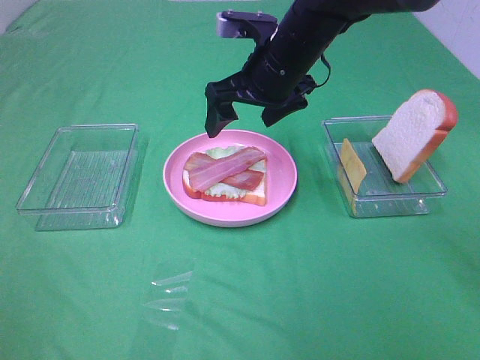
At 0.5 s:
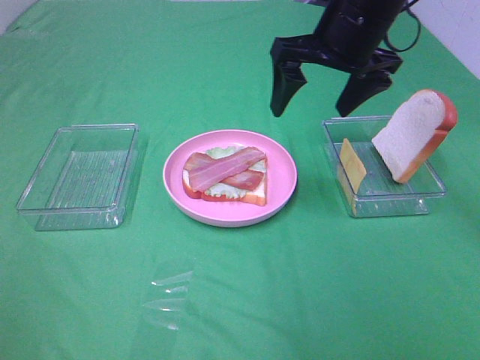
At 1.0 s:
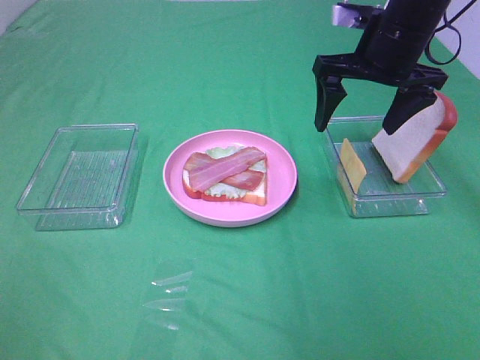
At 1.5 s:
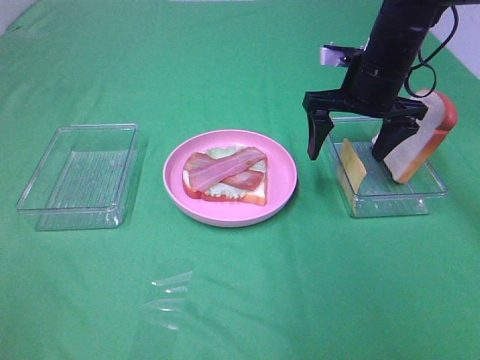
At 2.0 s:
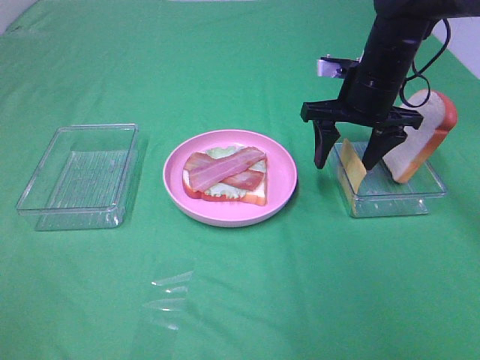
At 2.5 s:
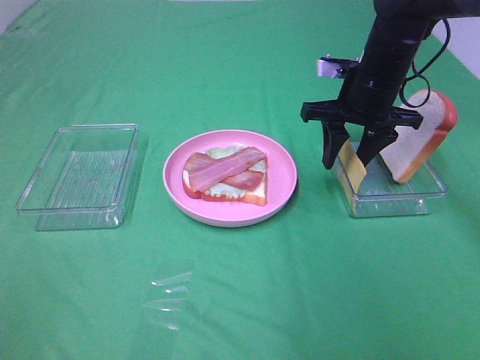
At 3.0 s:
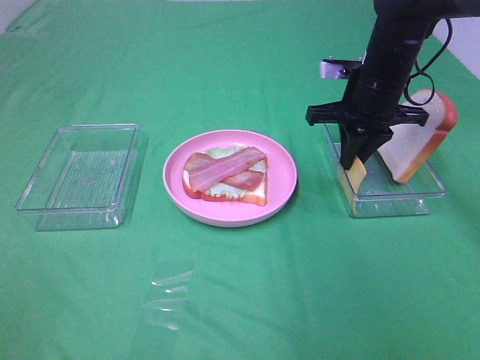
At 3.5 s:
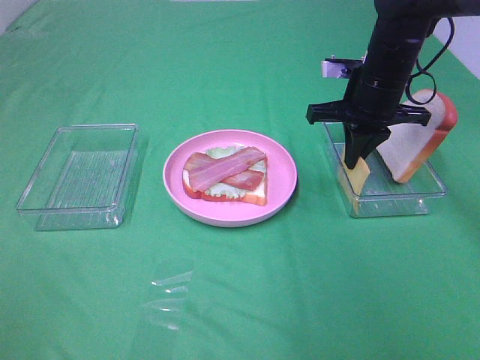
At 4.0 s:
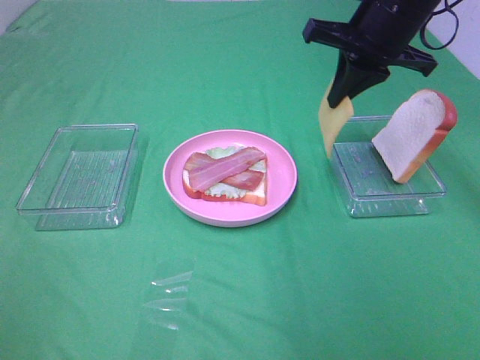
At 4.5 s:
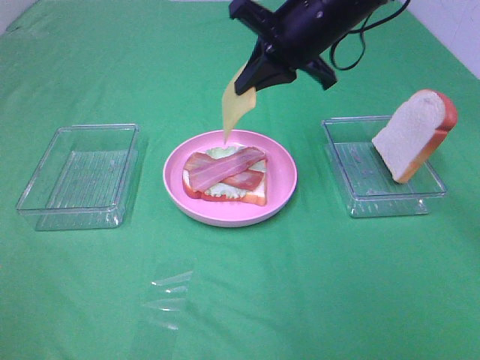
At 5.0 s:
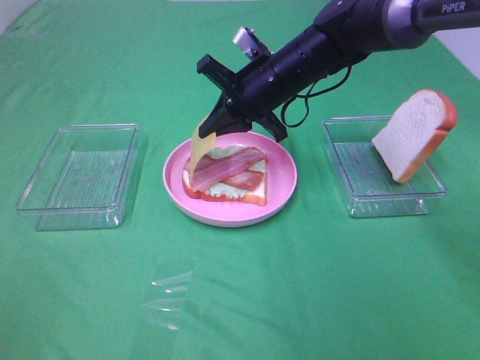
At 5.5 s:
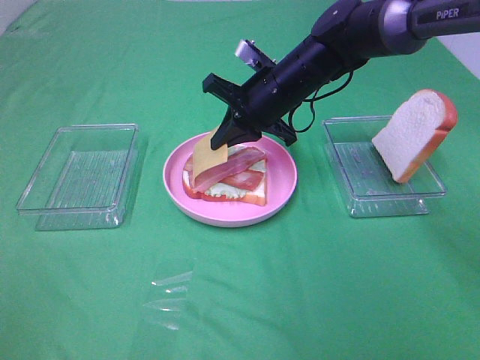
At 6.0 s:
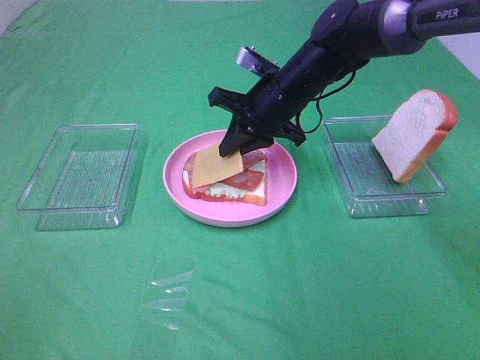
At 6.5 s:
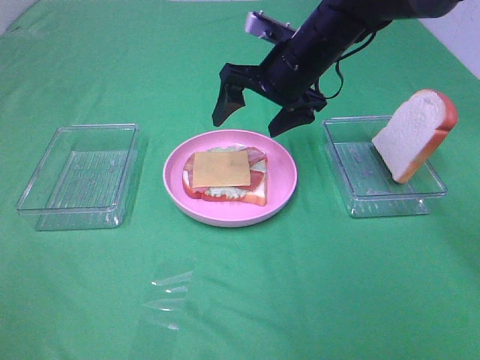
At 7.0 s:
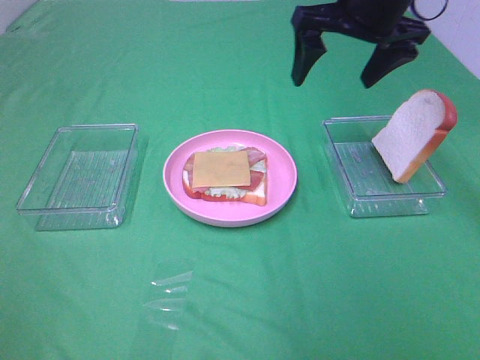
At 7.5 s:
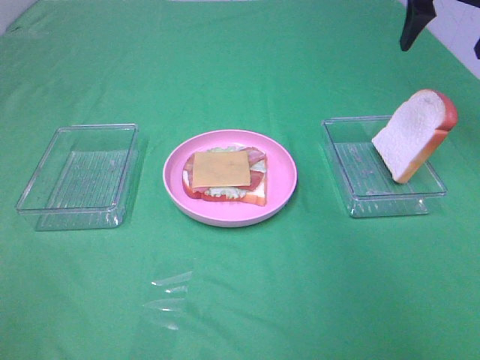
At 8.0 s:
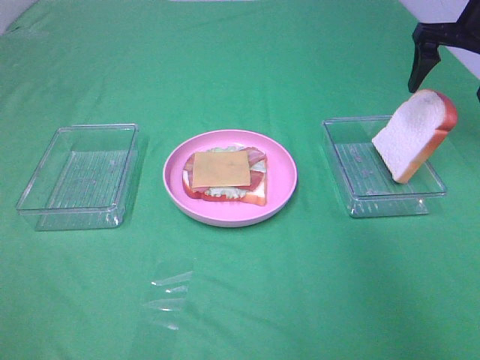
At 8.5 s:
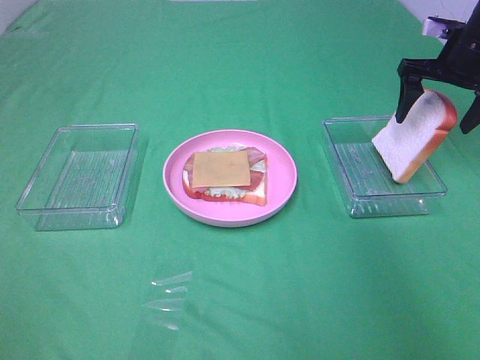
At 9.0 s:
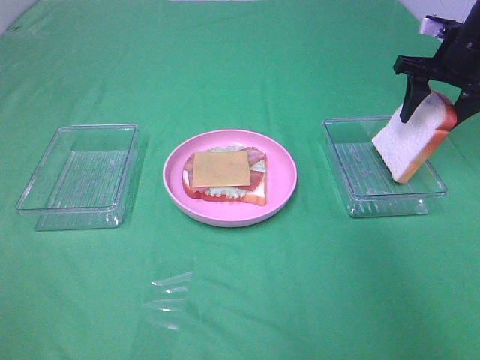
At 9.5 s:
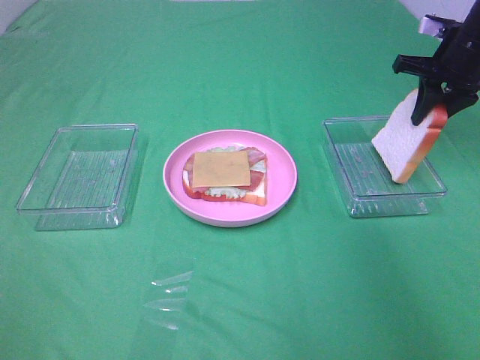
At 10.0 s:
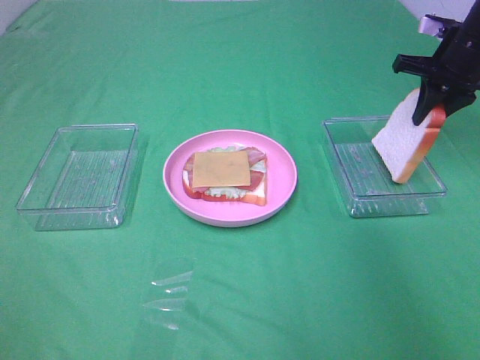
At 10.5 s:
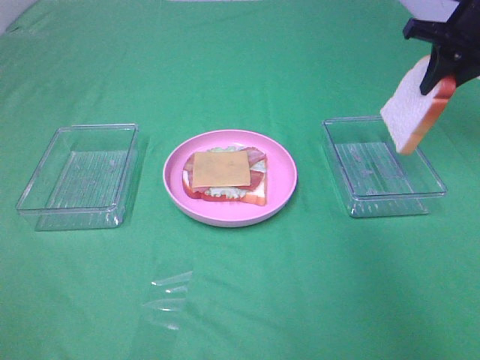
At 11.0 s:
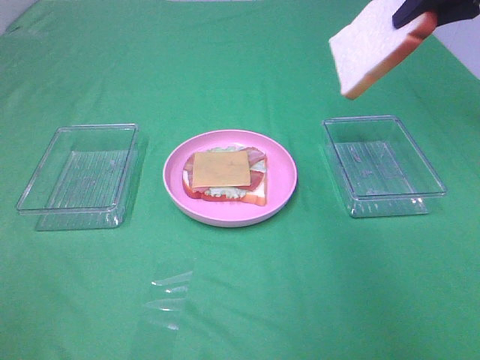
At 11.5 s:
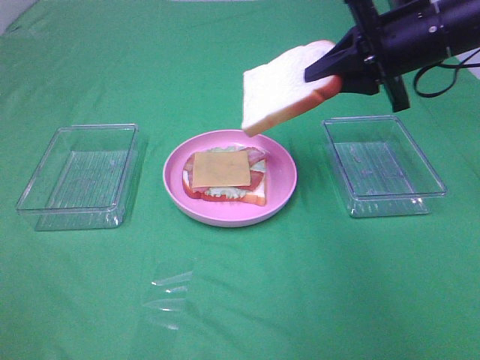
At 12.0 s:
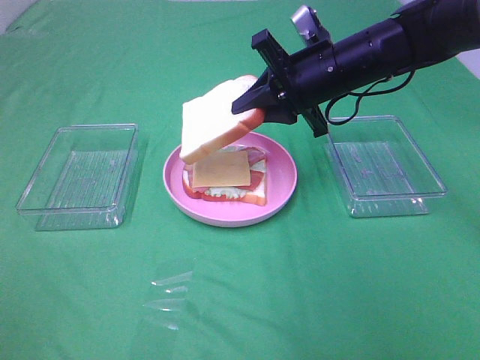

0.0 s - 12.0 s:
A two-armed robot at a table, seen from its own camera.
Task of the whole recording: Make sandwiches.
Step, 0.0 s - 3.0 s: Right hand:grab the cheese slice.
Step, 3.5 s - 6.0 s: Right hand:place the cheese slice on top of the bacon.
Step, 6.5 s - 9.5 s: Right hand:grab the bread slice.
0.0 s - 2.0 s: The right gripper is displaced to the right by roughly 10 cm.
2.0 s - 4.0 s: The right gripper shifts about 10 cm upward, and closes up.
4.0 s - 6.0 s: The right gripper heads downward and to the left, covering some 15 cm.
6.0 s - 8.0 s: The right gripper shifts roughly 25 cm to the right and upward, and opens.
8.0 s - 10.0 s: The right gripper closes.
10.0 s - 12.0 s: The right gripper shifts some 20 cm to the left.

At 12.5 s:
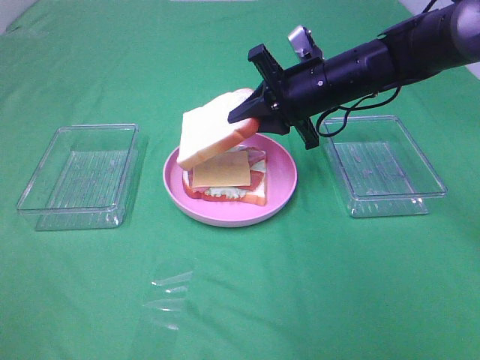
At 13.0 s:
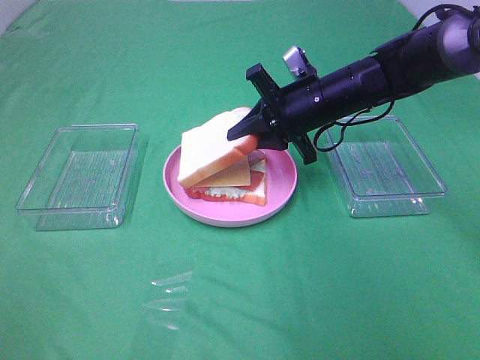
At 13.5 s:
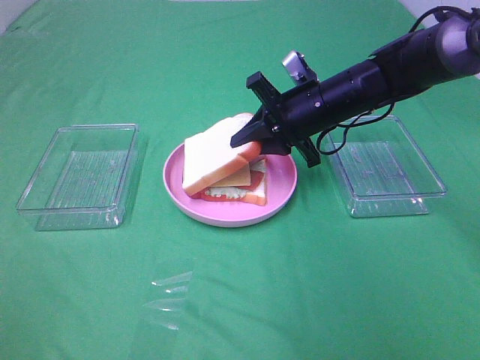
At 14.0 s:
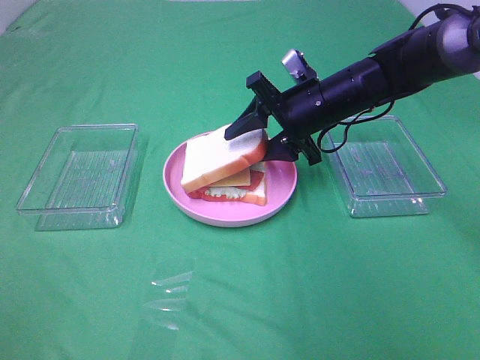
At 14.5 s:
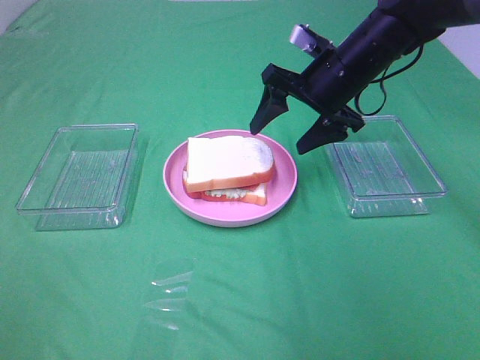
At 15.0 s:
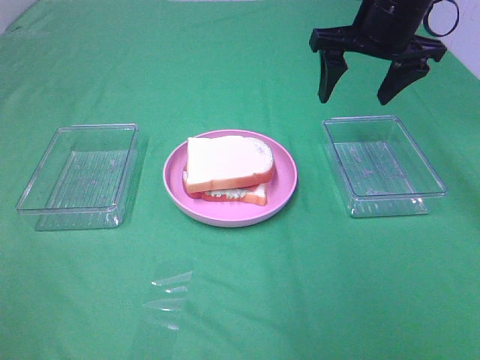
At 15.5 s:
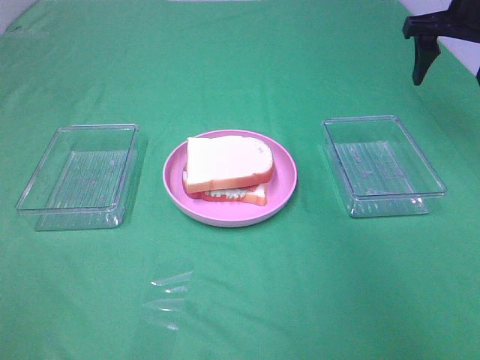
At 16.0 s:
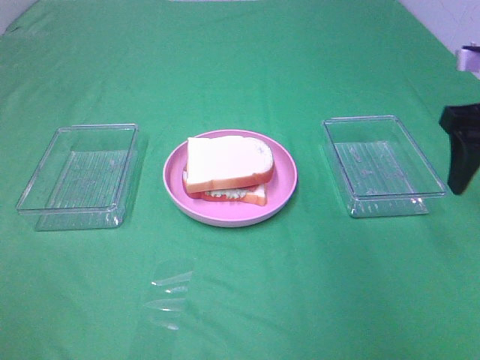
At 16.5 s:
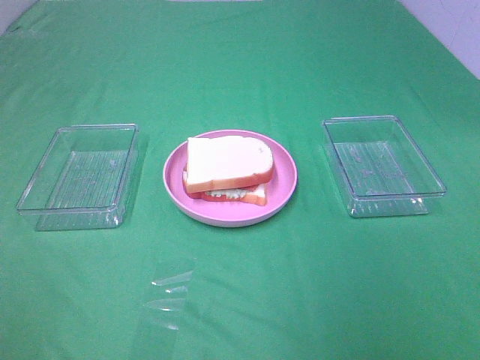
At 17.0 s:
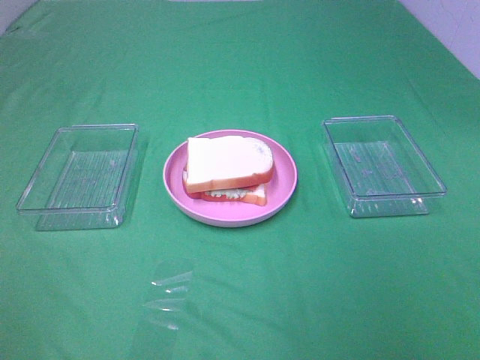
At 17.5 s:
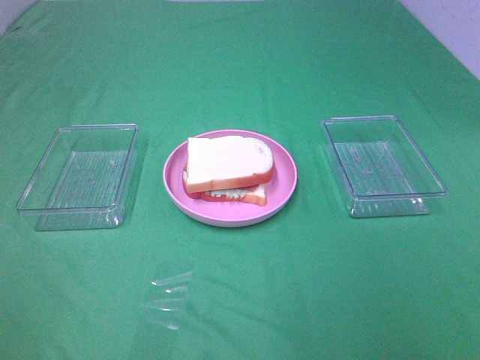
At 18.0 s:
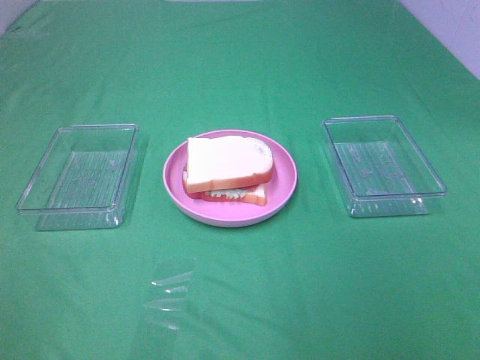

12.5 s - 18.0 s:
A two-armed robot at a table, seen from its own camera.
Task of the whole recording: Make sandwiches.
12.5 s - 14.5 s: The right gripper opens up.
14.5 s - 16.0 s: The right gripper is displaced to the right, backward and upward by roughly 20 cm.
16.0 s - 18.0 s: The right gripper is displaced backward by about 30 cm.

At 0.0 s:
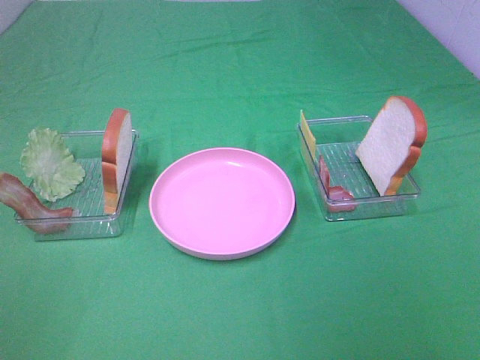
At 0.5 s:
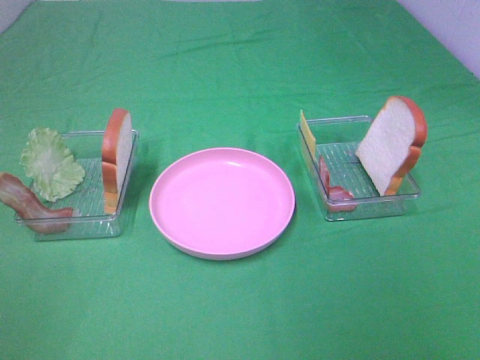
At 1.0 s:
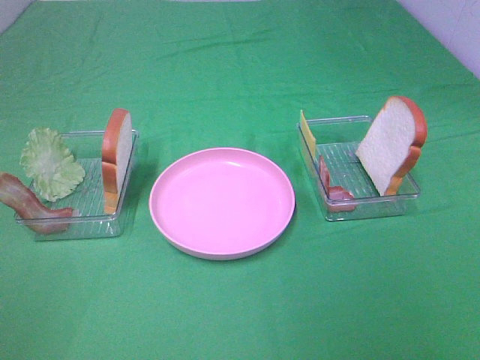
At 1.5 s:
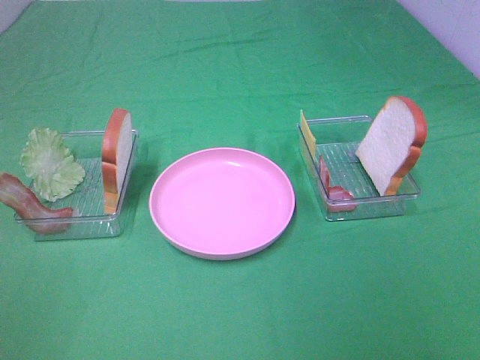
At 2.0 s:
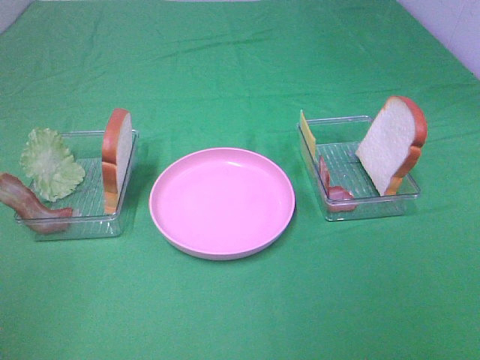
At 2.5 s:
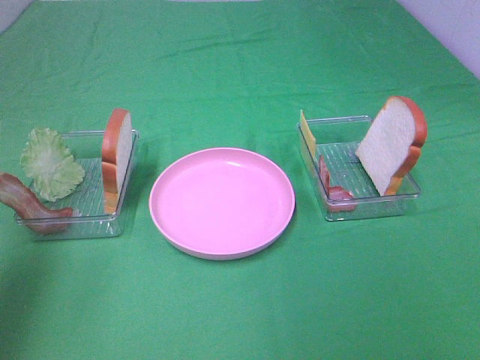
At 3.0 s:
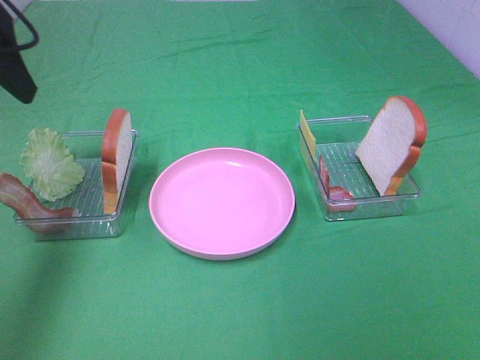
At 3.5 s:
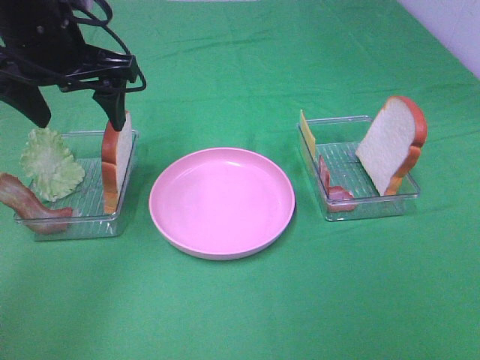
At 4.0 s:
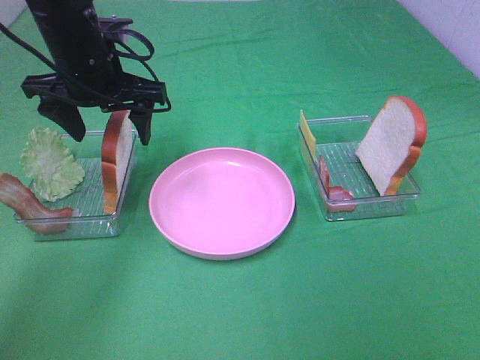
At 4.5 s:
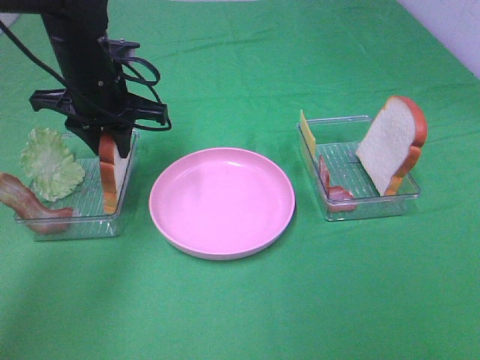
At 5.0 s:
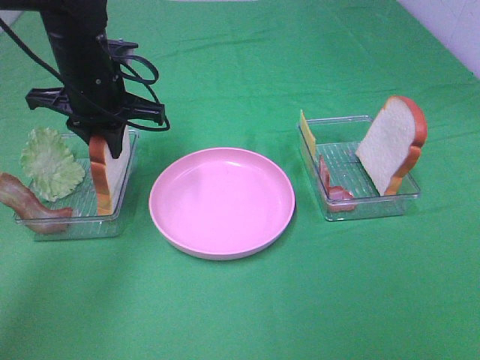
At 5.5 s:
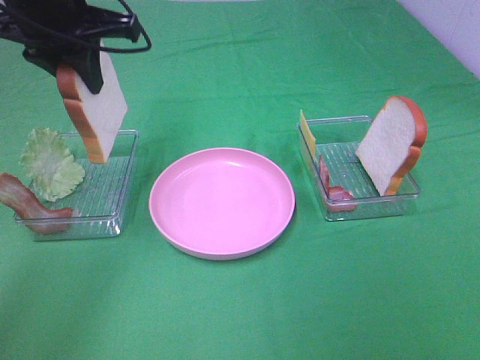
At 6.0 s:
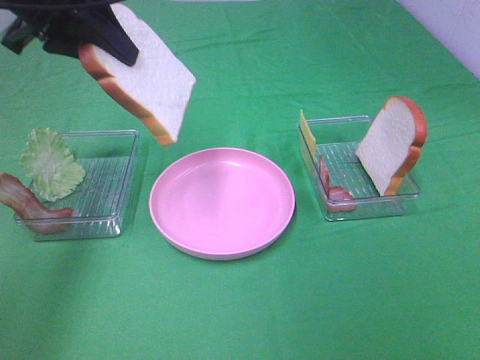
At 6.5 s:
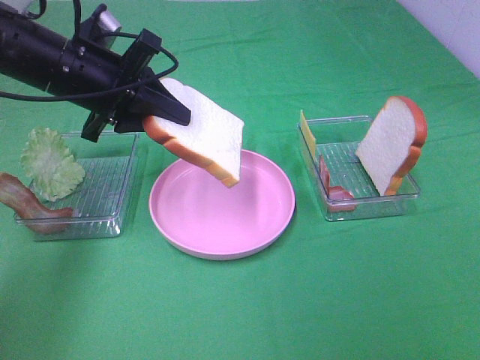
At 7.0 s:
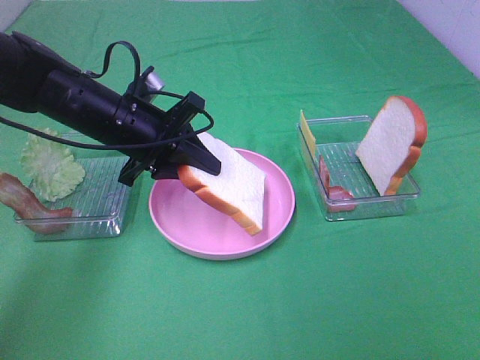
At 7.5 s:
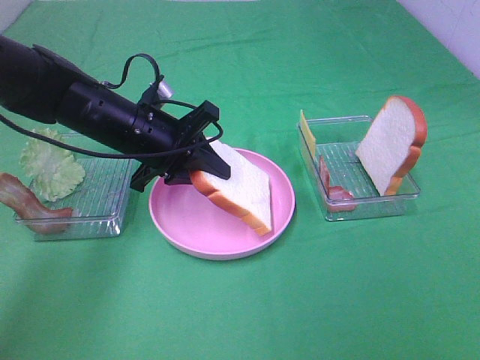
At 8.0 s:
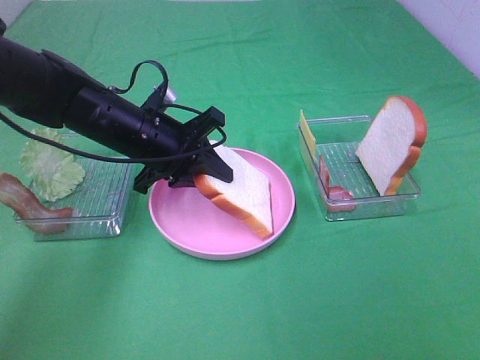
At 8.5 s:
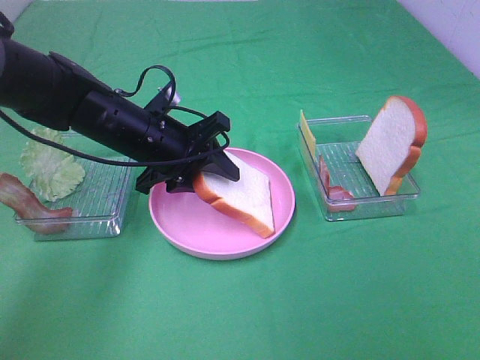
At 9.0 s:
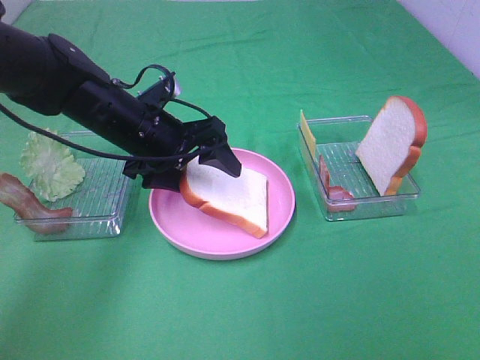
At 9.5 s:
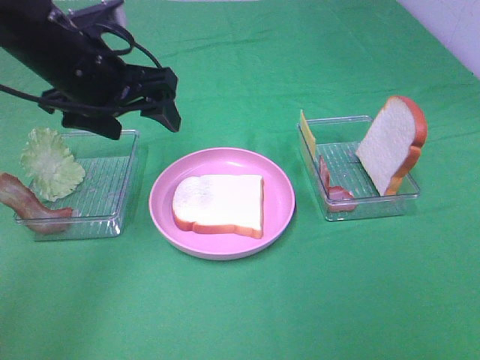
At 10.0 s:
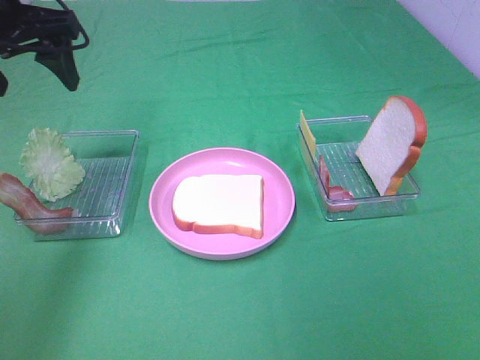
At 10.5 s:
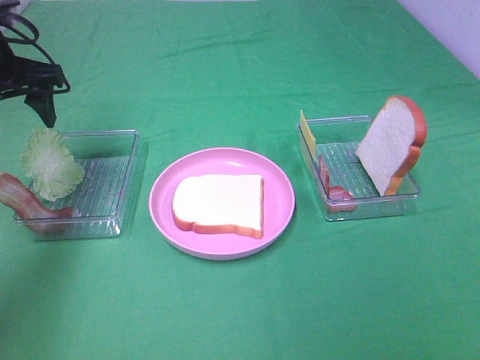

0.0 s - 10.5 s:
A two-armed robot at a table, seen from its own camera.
Task of the whole recording: Make sandwiches.
Step, 0.0 s - 4.5 s: Left hand:grab the bread slice.
Step, 5.0 s - 9.0 s: Left hand:place the bread slice on the plate.
2.0 s - 4.0 s: The left gripper heads forward and to the right, covering approximately 40 cm.
4.0 s - 6.5 s: The left gripper goes upward and returns, roughly 10 cm each way, and closes its fingers.
6.5 s - 8.5 s: The left gripper is displaced downward and to the right by about 10 cm.
8.5 s - 10.5 s: The left gripper travels to the left and upward by some 20 cm, and opens its fingers.
